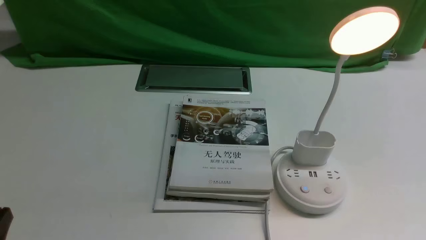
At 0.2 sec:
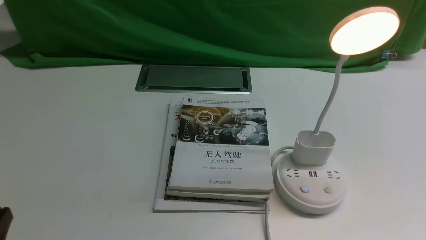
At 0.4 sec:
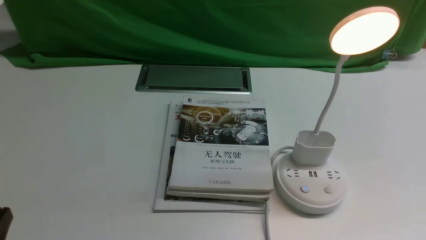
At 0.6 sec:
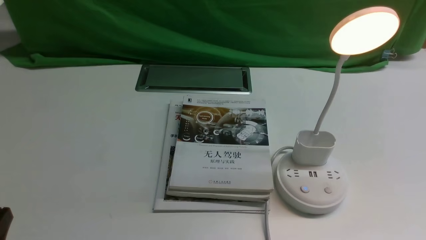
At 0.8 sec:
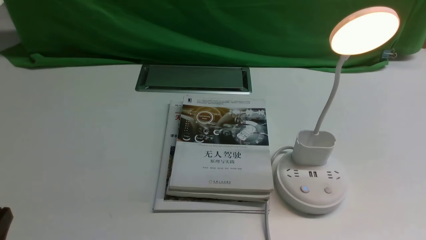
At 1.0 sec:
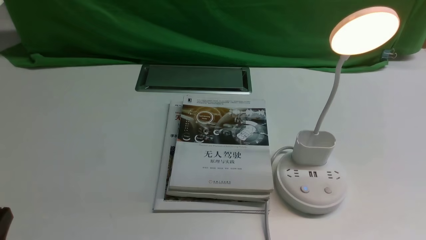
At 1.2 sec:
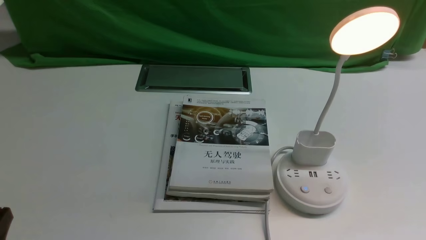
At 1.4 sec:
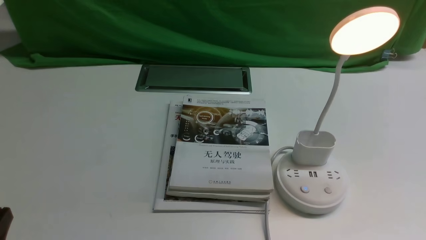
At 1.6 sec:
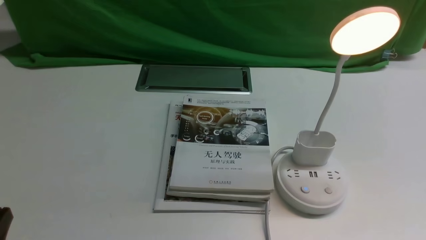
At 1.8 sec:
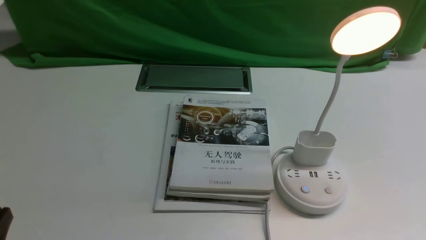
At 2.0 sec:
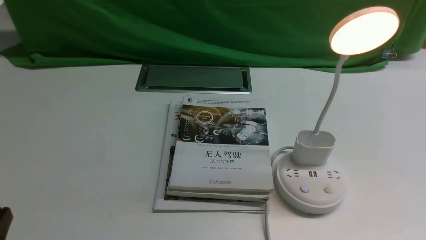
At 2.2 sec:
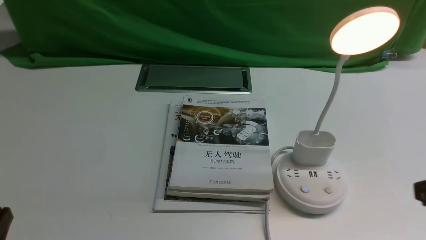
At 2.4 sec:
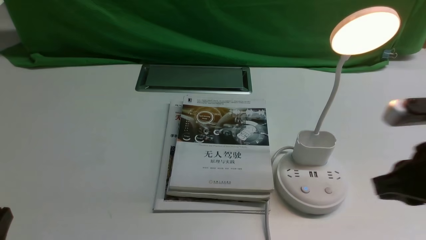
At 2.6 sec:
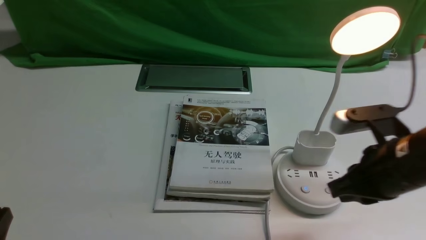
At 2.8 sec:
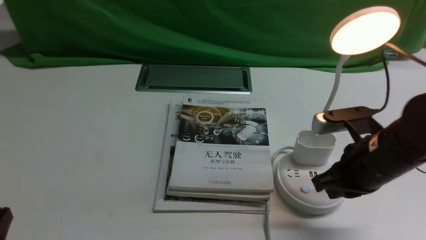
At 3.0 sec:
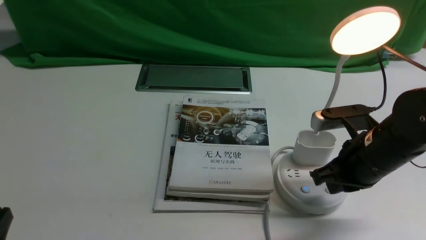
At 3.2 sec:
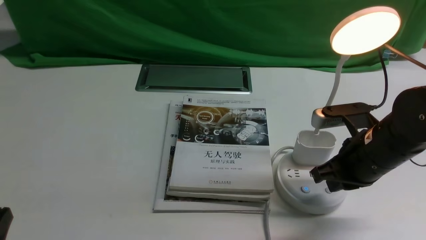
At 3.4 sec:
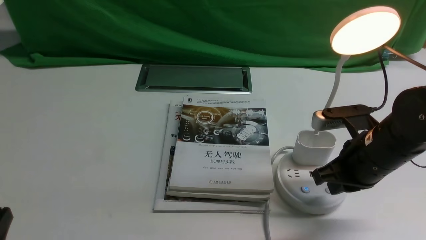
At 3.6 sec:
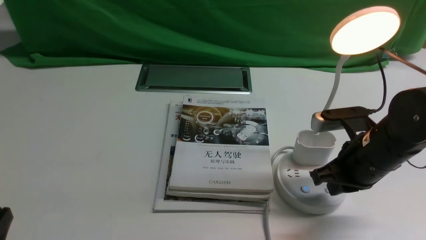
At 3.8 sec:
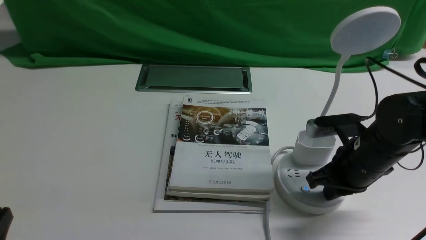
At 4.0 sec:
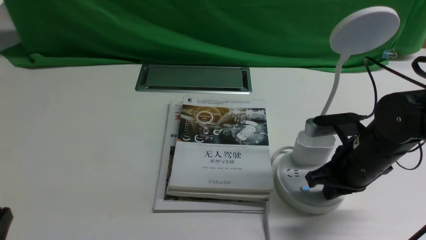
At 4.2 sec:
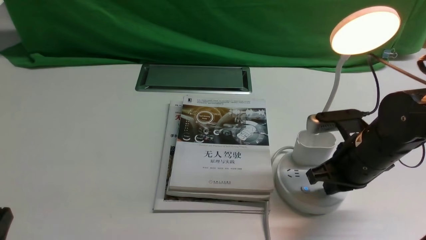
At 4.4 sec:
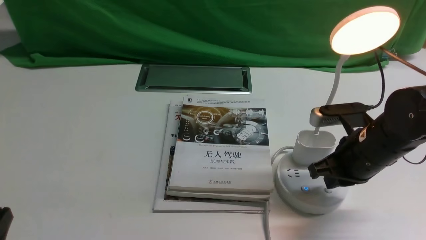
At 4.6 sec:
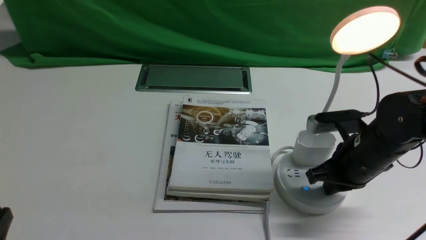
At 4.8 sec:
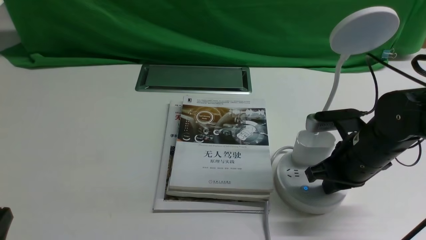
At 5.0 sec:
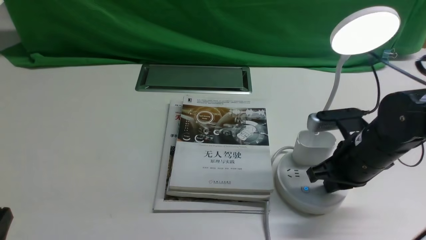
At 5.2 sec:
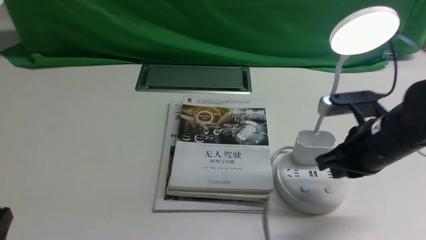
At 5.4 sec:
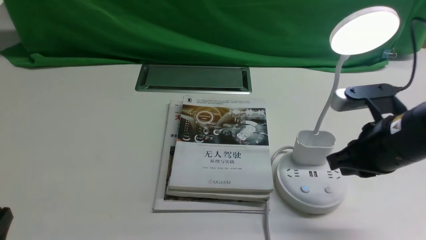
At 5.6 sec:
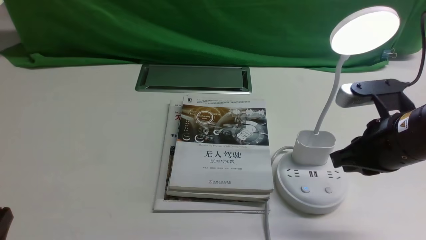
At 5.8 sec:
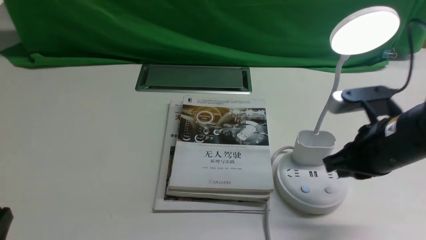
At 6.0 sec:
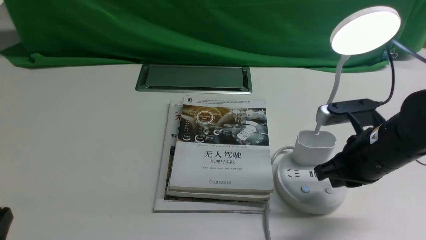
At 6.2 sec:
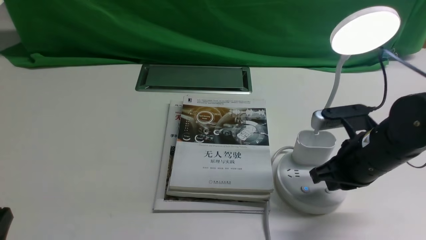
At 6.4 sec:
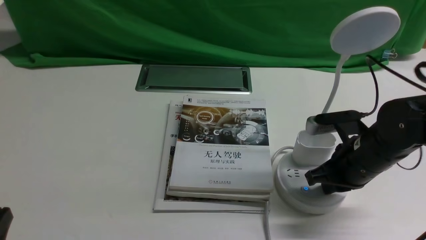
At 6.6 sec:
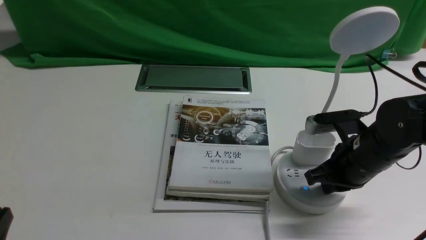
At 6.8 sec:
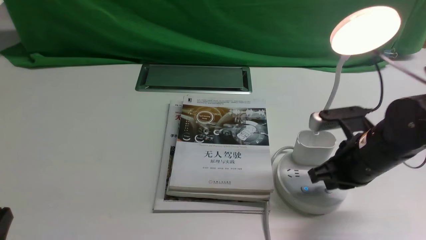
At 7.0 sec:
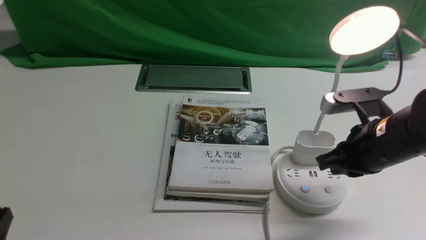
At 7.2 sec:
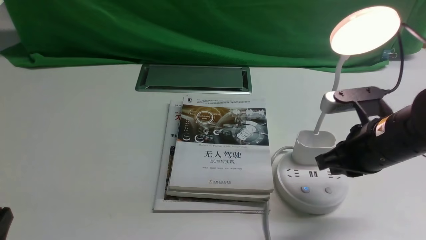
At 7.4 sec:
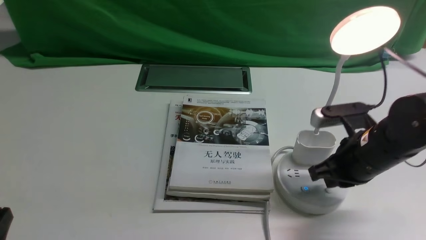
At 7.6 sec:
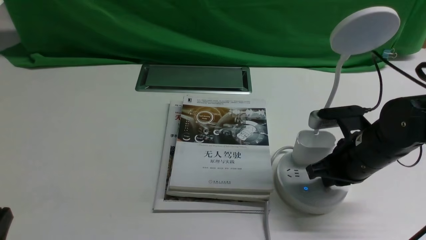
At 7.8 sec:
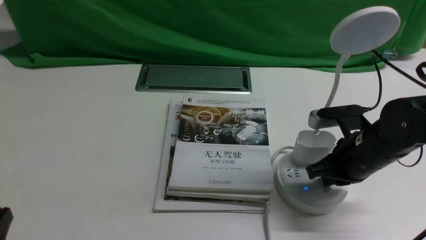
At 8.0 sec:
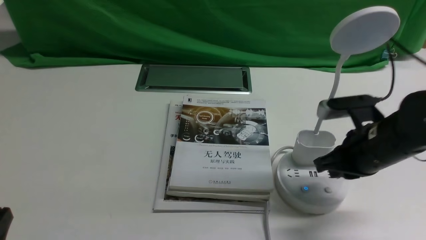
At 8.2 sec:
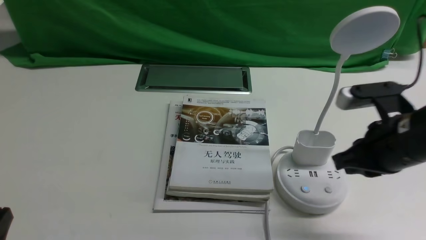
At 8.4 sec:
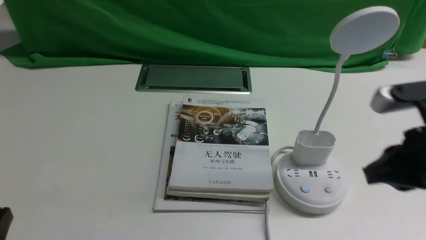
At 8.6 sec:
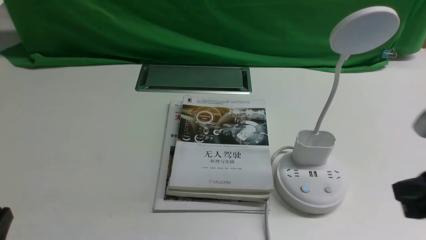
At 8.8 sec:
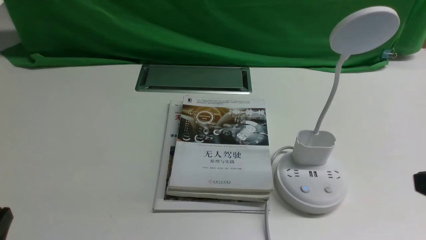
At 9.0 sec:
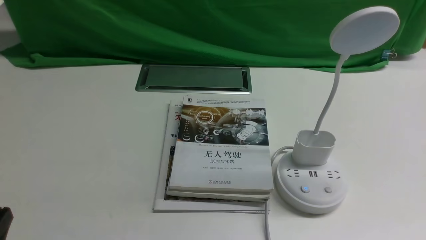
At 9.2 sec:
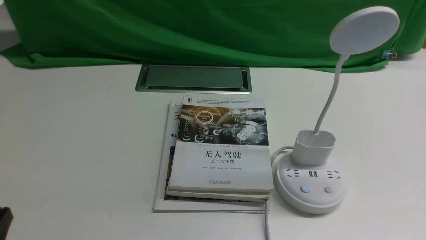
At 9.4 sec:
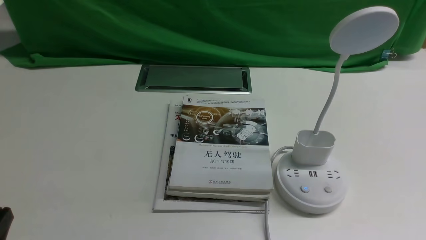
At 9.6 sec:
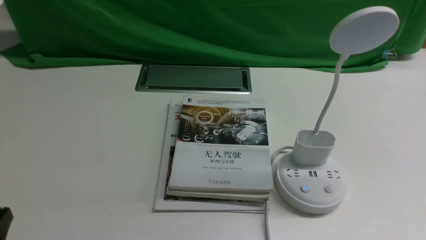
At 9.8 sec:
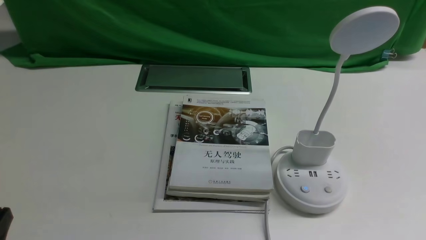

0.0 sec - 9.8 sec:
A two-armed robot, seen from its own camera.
Task of the whole recording: turn off the desk lamp on the white desktop by hand.
Step, 0.0 sec - 8.0 sec: use the right arm to press the button switch on the lamp holder.
1.4 sec - 2.8 sec: The right gripper goes some 20 cm forward and to the left, and closes up.
2.8 sec - 4.2 sec: The grippers stay close to where they were, moving slightly.
4.2 sec - 5.6 sec: The right gripper is displaced upward by roughly 5 cm.
7.0 sec - 8.4 sec: The right gripper moves backward and upward, about 10 cm.
8.4 sec - 9.8 sec: The right gripper shifts roughly 20 cm backward, downward and to the right, and opens.

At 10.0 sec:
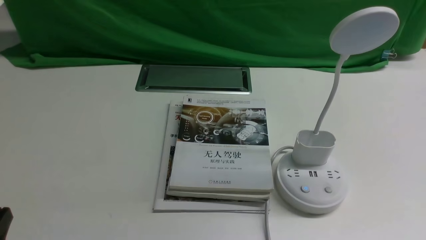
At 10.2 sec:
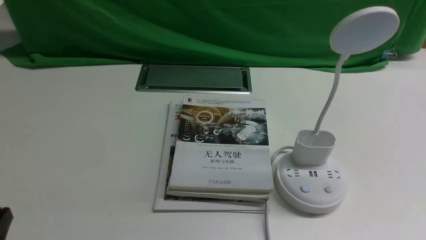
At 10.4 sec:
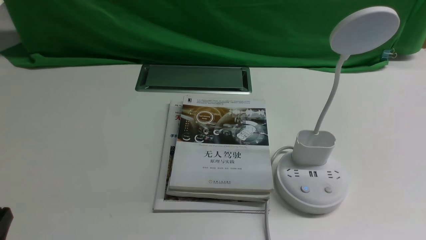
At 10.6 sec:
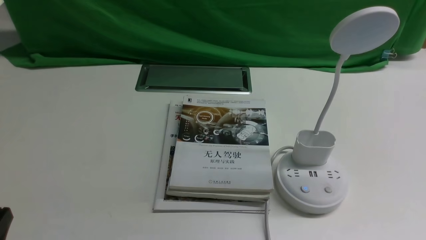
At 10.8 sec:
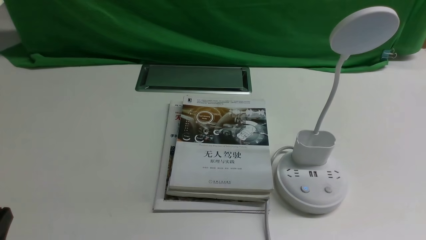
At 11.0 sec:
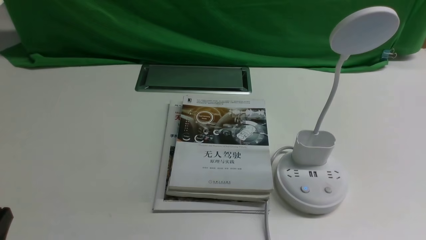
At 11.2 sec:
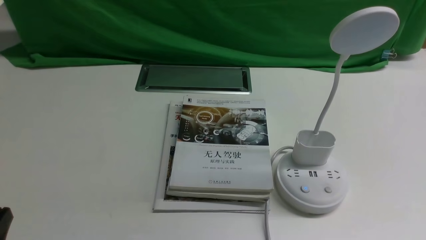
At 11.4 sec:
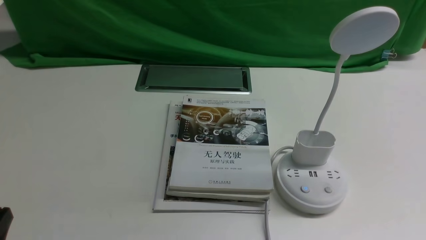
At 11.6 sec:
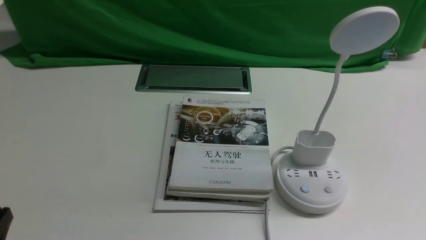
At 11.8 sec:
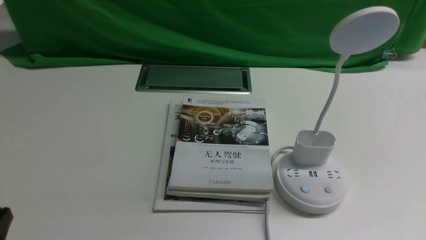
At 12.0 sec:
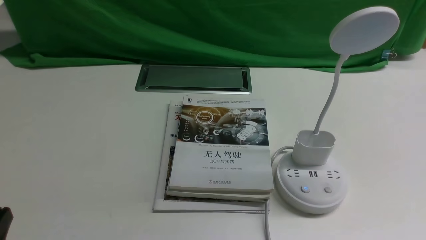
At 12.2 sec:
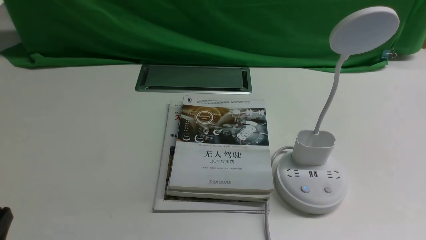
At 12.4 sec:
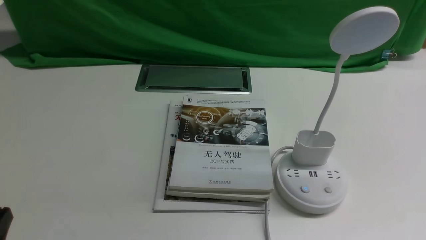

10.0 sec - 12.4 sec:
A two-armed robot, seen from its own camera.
Task of the whole recording: turn off the desk lamp on the white desktop by hand.
11.2 sec - 12.4 sec: Both grippers stay put.
